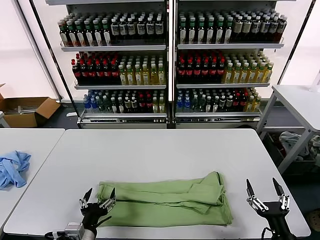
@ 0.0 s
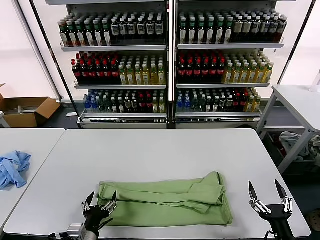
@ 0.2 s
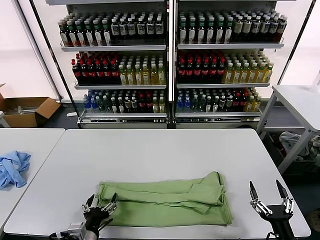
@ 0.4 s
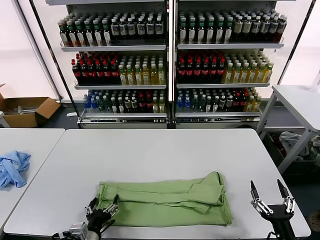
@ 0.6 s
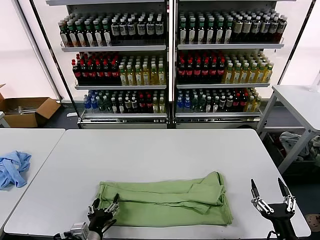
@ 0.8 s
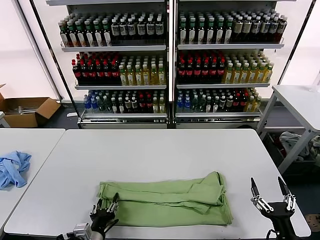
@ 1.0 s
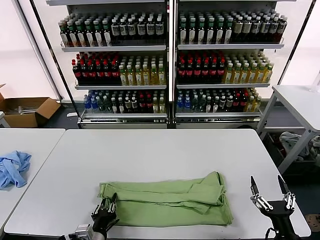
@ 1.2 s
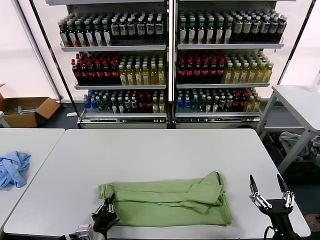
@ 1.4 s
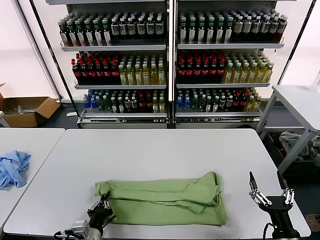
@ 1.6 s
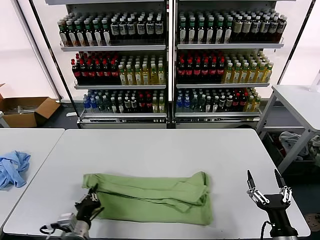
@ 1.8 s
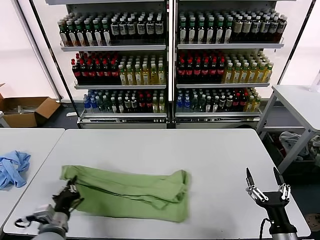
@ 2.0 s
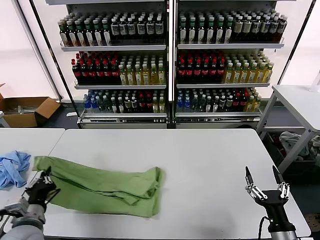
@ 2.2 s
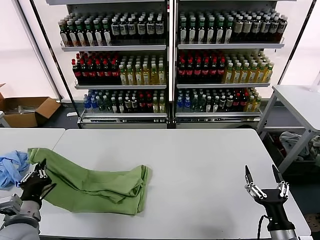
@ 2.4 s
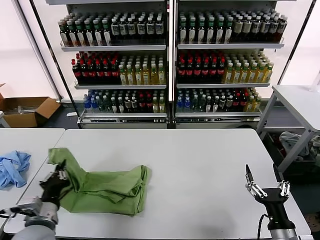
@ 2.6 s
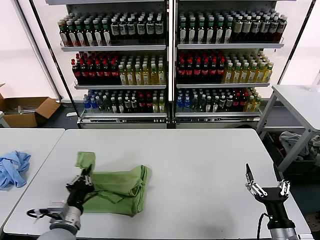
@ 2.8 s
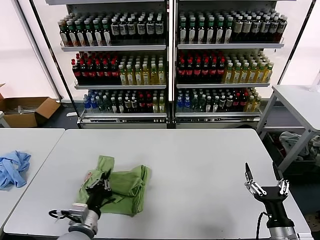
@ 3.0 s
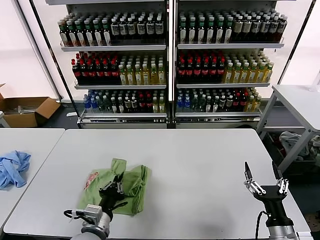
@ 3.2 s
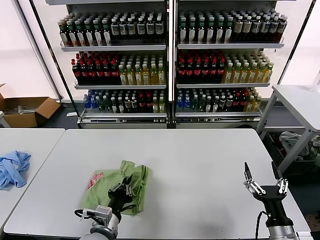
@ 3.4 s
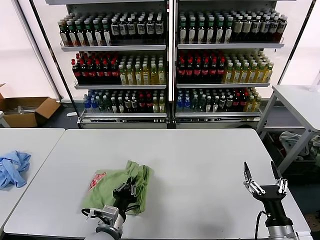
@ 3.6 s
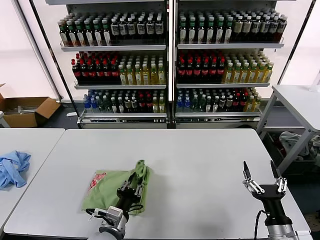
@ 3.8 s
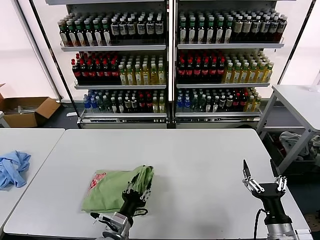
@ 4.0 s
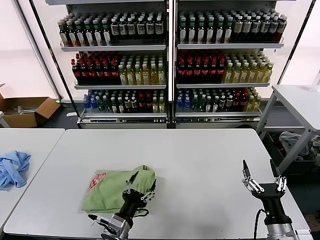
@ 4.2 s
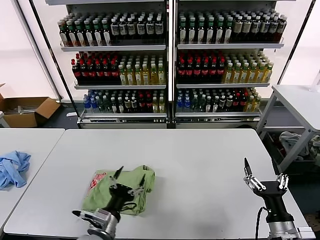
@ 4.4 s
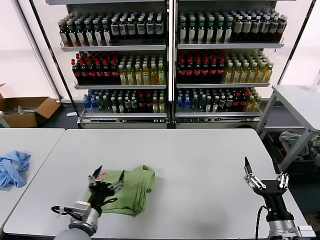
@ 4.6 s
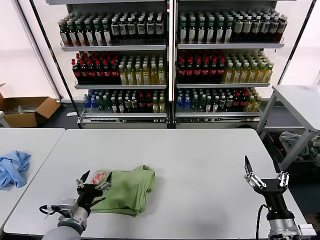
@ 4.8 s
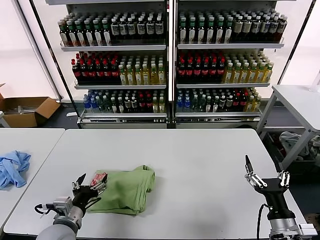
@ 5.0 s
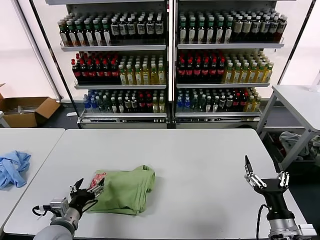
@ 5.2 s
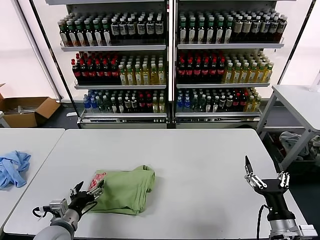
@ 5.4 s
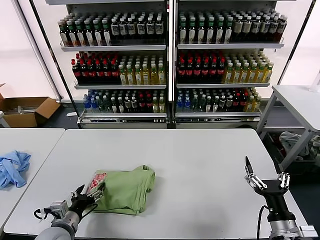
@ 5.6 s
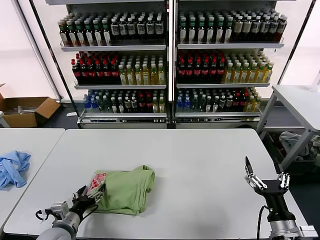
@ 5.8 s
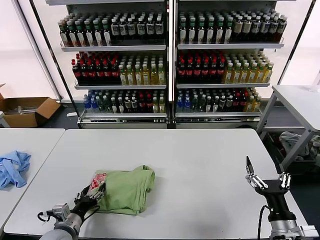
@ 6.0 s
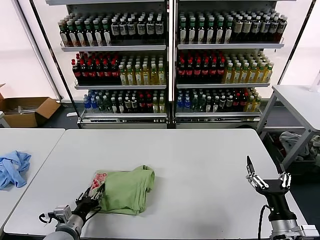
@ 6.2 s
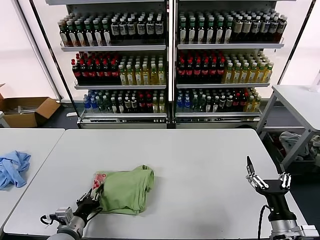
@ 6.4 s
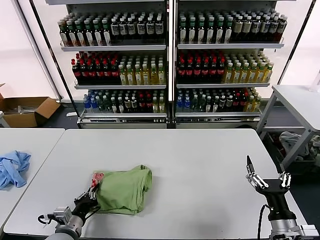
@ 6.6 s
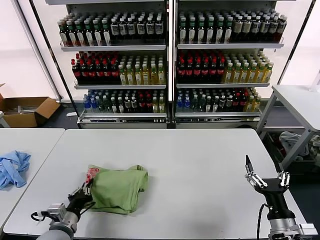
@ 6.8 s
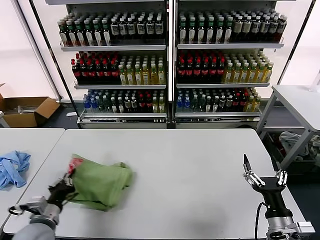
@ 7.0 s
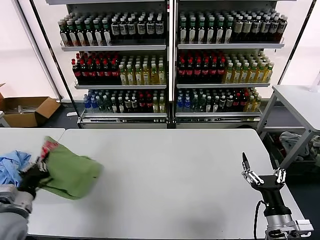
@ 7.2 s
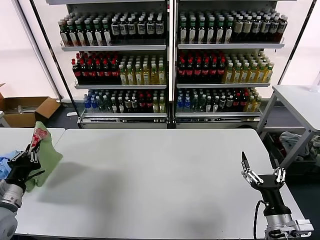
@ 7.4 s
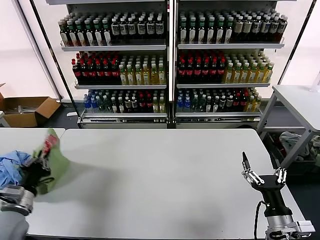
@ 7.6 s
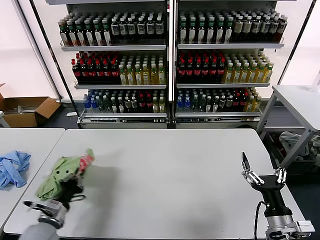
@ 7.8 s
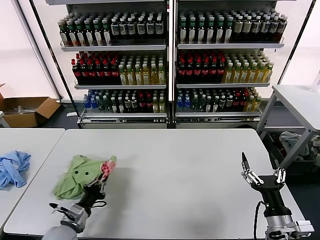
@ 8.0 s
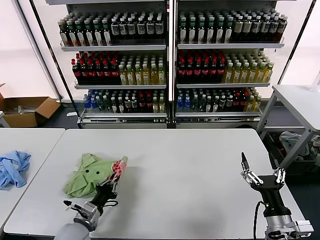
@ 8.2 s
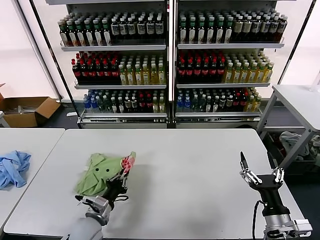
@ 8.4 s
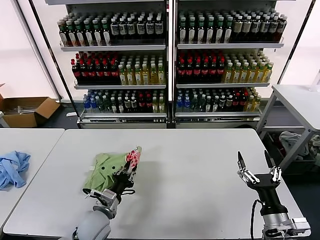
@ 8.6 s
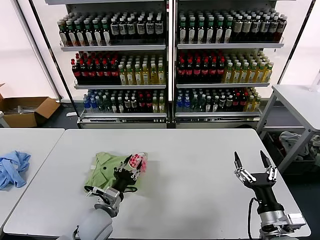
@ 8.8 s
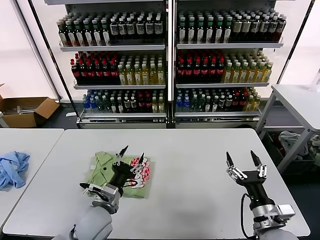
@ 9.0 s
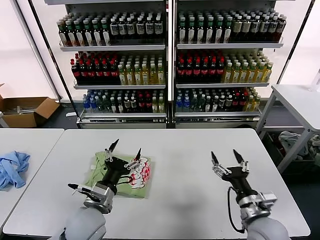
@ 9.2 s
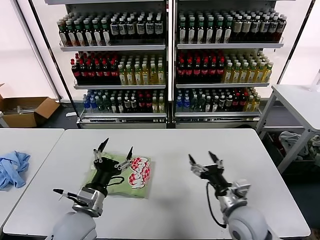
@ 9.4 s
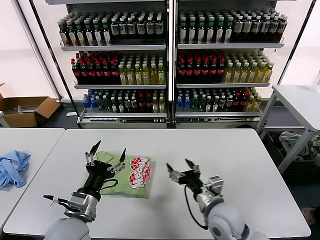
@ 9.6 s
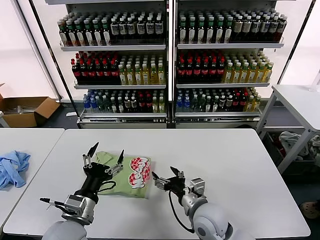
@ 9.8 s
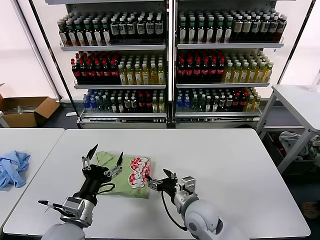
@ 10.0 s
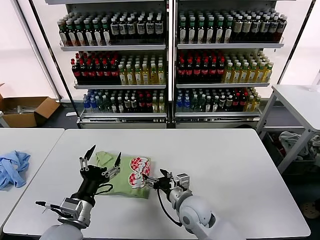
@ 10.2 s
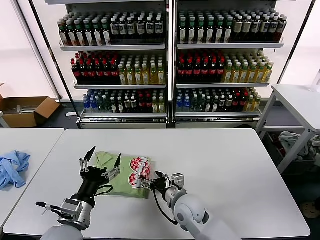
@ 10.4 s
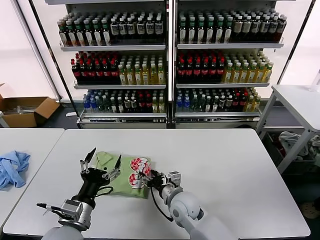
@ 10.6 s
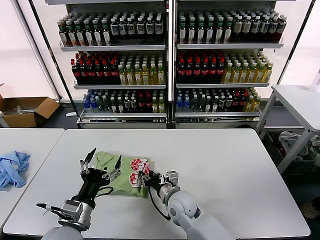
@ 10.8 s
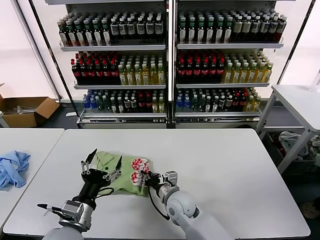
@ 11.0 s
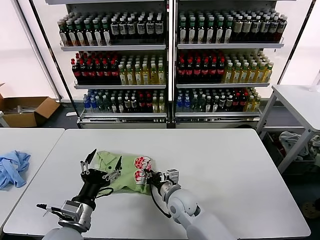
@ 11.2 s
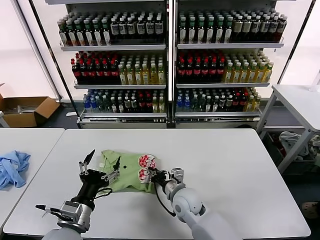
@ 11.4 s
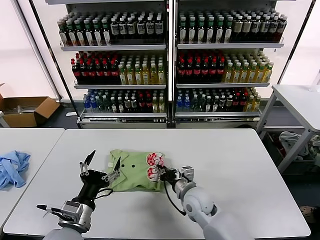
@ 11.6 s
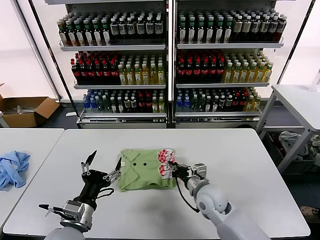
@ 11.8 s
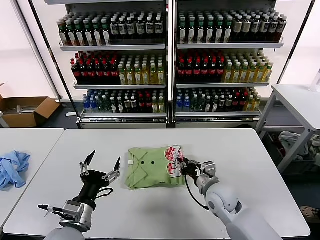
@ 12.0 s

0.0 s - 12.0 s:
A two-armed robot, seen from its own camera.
Task of the whole recording: fold and organize the clothes.
Step, 0.0 s - 1.4 s: use the left gripper to clamp the left edge of the fabric.
Step, 1.6 s - 4.0 s: use the left gripper to drag the left edge of the fabric to the left and folds it over the right edge.
Step, 4.2 s - 8.8 s: Flip the folded clothes over with left gripper.
0.0 s - 1.6 s: The left gripper closes.
1.6 s - 3.0 s: The left gripper shifts some 5 cm upward, and goes to the left and returns, some 15 cm each way.
3.0 s - 4.4 s: The left gripper travels to the right by roughly 5 cm, and opens its fingers.
4.4 s - 6.0 s: The left gripper travels to the left by about 15 cm.
6.0 s - 7.6 s: The left gripper is displaced upward and to the left by about 15 cm, and closes its fingers.
7.6 s - 9.0 s: The left gripper heads to the right, covering roughly 25 cm, and opens its fingers.
9.0 s - 10.4 s: The right gripper shifts some 25 cm to the left and forward. The left gripper shifts about 5 cm backward.
10.4 s - 12.0 s: The right gripper shifts about 10 cm to the right, and closes up.

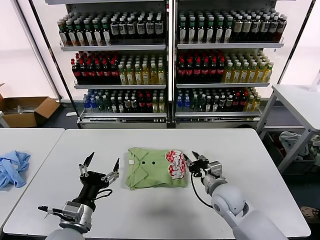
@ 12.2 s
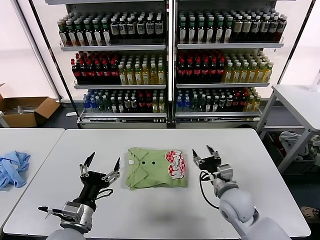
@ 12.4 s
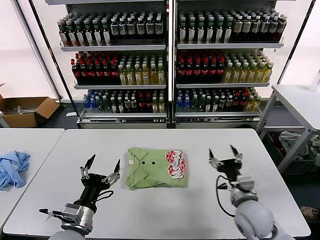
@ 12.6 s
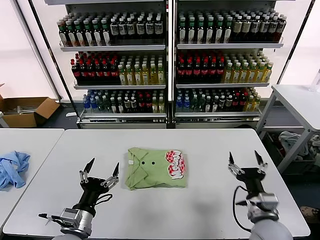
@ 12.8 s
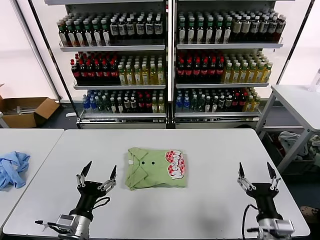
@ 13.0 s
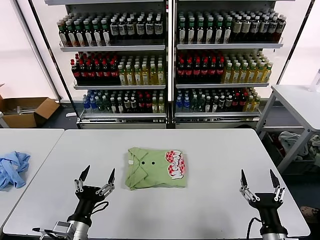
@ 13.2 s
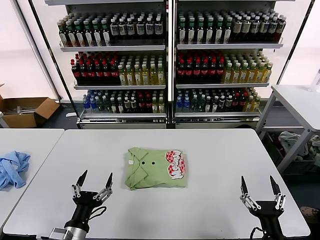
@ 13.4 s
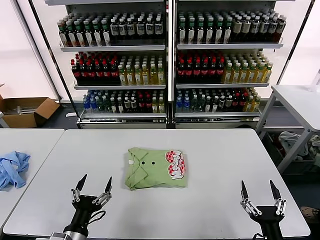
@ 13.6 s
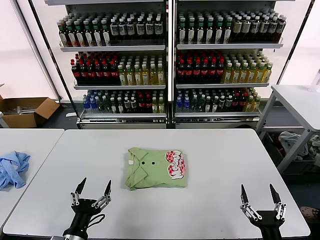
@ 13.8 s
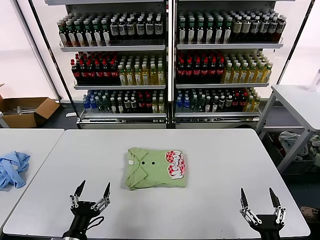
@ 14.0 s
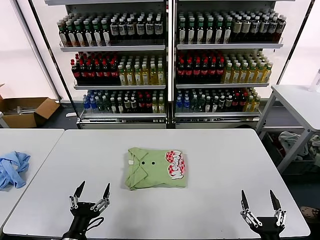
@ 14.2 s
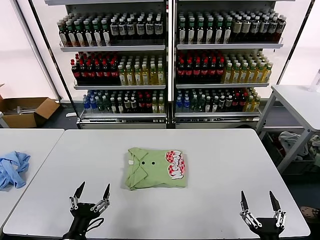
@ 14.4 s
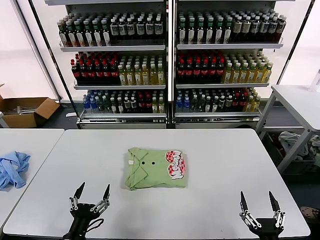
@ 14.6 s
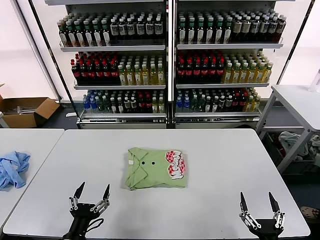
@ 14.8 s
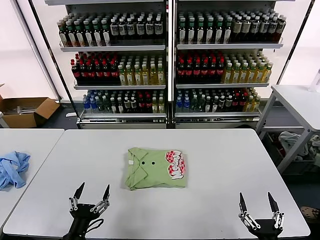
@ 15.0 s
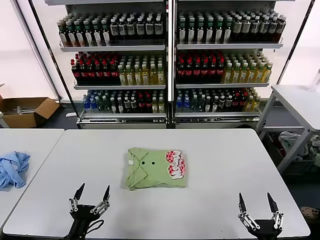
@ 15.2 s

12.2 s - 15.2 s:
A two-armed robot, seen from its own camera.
Task of the whole recording: fold and organize the clothes.
12.2 s - 13.8 s: The left gripper heads backward and downward, covering approximately 10 cm, while the right gripper travels backward by roughly 25 cm, and opens up.
13.8 s - 15.2 s: The grippers move only a little.

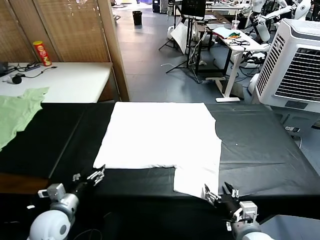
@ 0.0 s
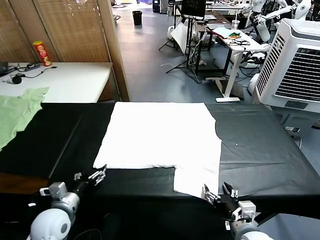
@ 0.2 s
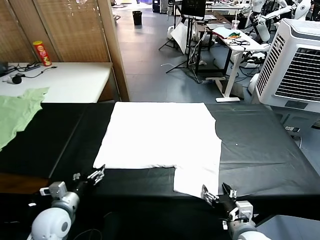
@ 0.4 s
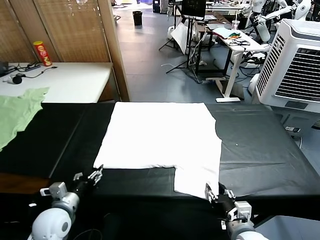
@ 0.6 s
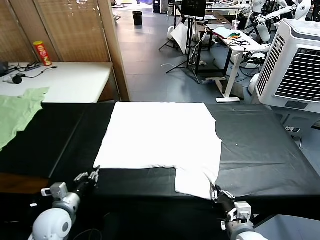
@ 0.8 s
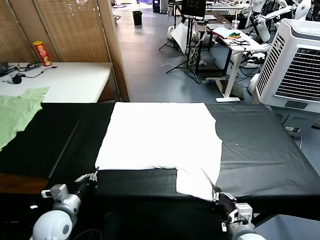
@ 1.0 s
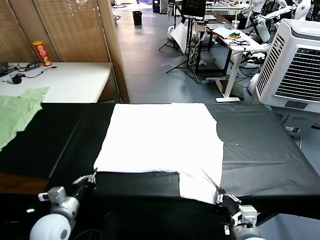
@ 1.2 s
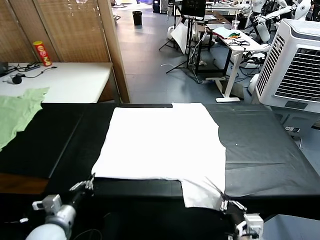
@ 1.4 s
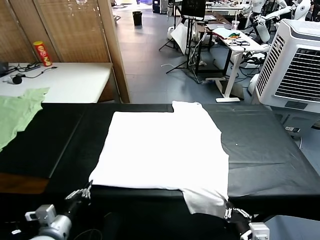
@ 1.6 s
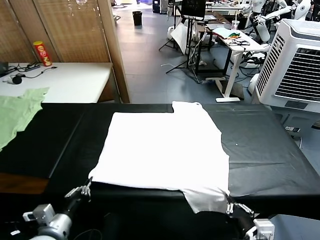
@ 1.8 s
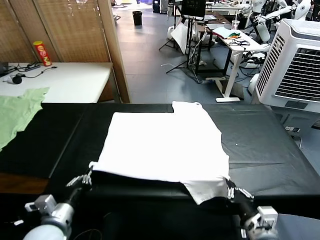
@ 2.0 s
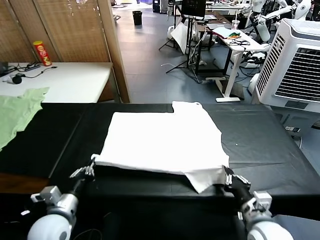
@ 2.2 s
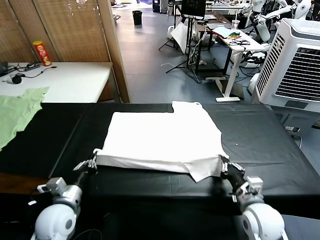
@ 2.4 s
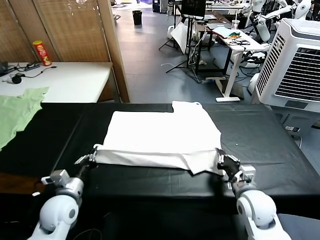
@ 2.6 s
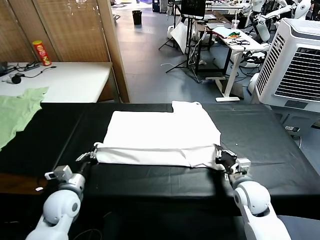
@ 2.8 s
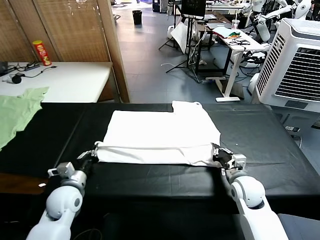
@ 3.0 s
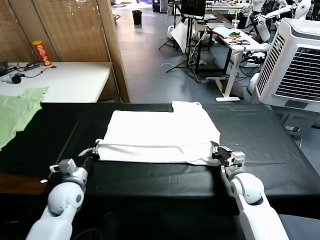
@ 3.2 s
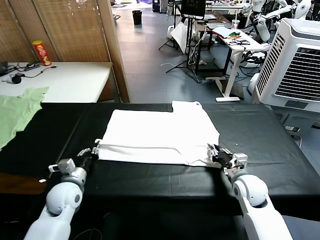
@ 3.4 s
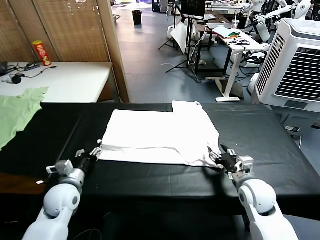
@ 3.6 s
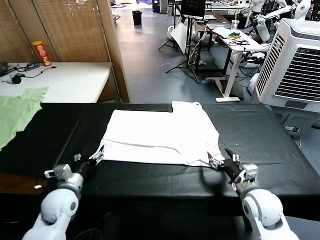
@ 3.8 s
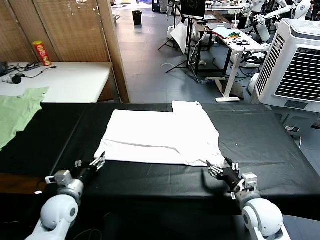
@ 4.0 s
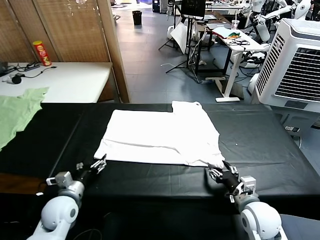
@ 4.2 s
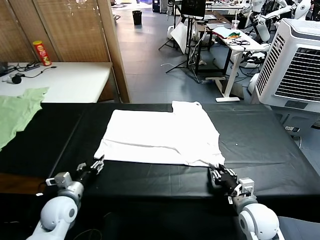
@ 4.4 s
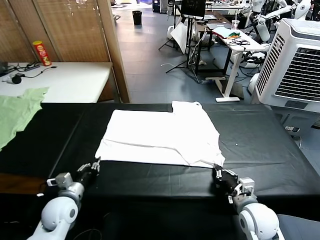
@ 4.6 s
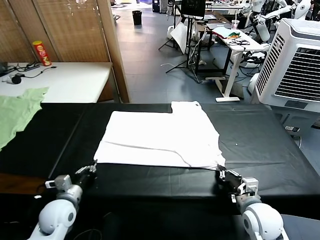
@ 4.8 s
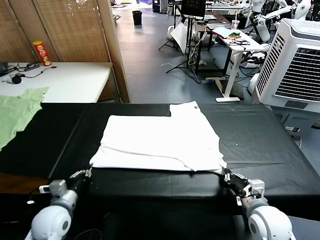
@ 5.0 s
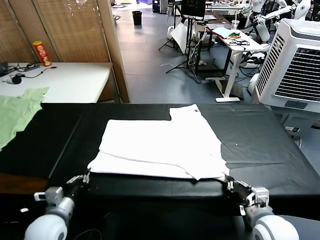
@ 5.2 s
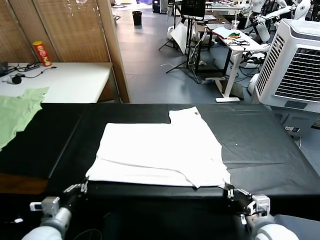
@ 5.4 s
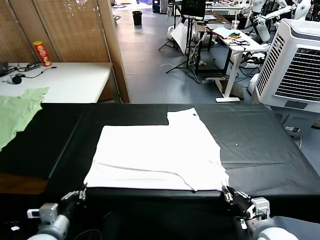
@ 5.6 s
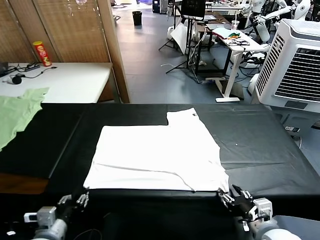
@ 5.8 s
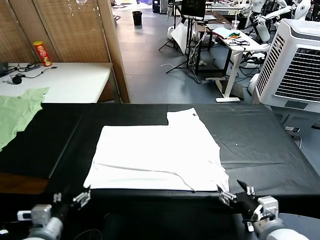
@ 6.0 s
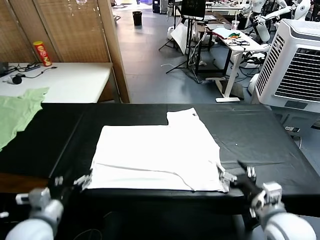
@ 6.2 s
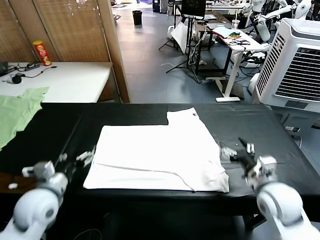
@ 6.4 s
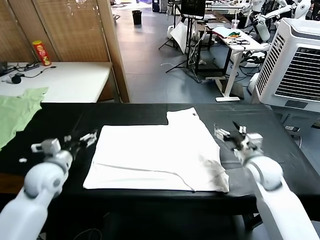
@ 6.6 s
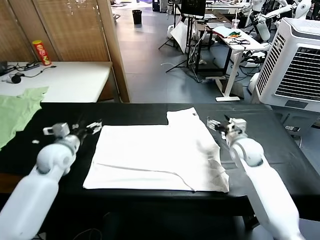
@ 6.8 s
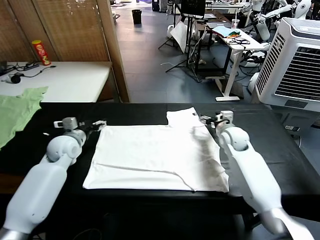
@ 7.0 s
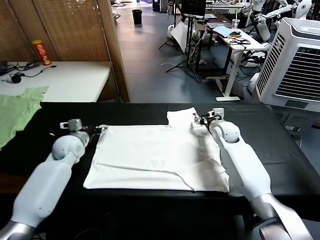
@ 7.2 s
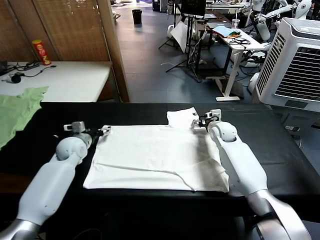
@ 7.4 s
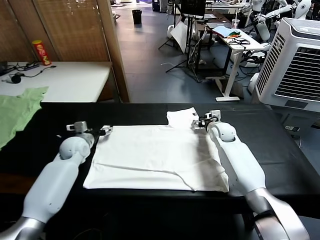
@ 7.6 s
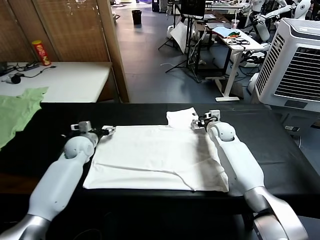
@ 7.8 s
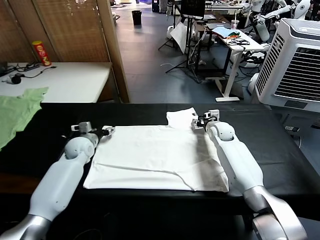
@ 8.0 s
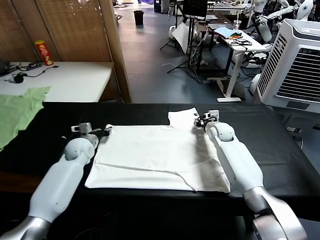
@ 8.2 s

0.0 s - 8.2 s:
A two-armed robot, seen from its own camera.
Task of the whole recording: fold and organize the clothes.
Step, 0.0 s - 1.0 s: use both grippers simultaneously to clamp the lower edge of the clothing fabric.
Step, 1.2 s - 3.6 s: use both grippers to drag the lower edge of the fabric forward and fold it over the upper edge.
Step, 3.8 s - 5.8 s: Drag the clothes downward with both gripper.
1.6 s - 3.2 s: Both grippers travel together forward, roughly 20 cm.
3.2 s - 5.0 s: The right gripper heads backward, covering about 15 cm, and opens, then closes once more. The left gripper heads backward, covering about 5 cm, and opens, then closes once more.
5.0 s - 6.6 s: The left gripper shifts roughly 15 cm upward and forward, and opens. Meanwhile the right gripper goes approximately 20 cm forward, and opens its fingers.
6.6 s - 8.2 s: Both grippers move forward and downward, approximately 15 cm. The right gripper closes up. Meanwhile the left gripper closes up.
